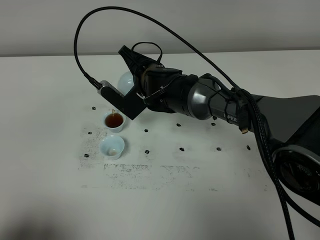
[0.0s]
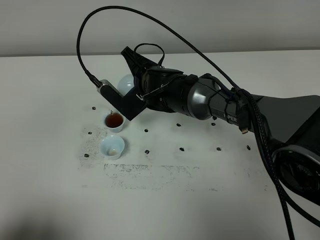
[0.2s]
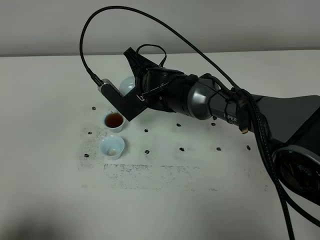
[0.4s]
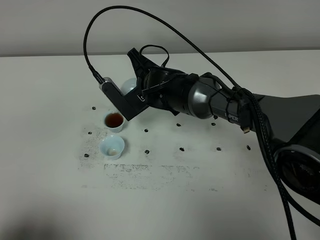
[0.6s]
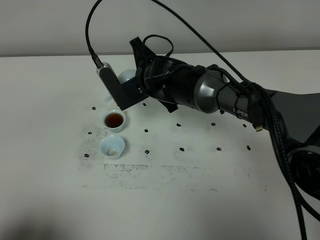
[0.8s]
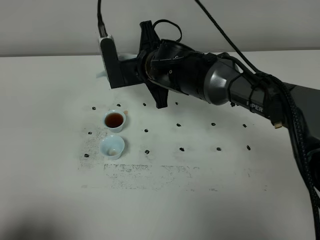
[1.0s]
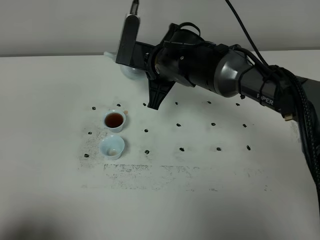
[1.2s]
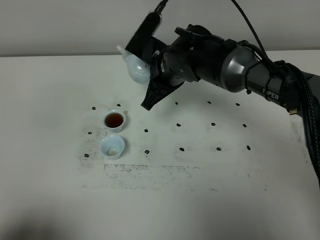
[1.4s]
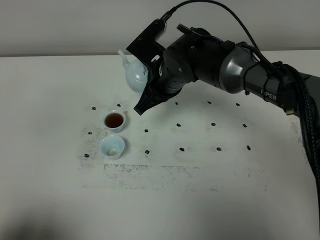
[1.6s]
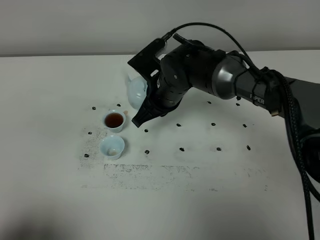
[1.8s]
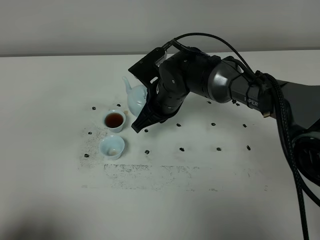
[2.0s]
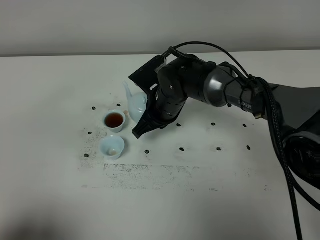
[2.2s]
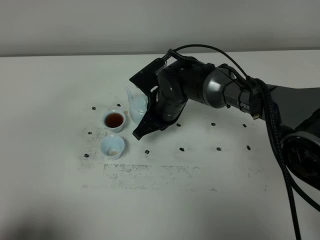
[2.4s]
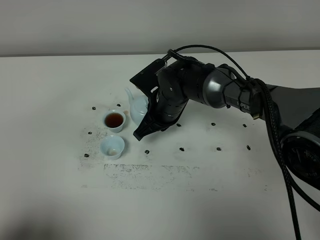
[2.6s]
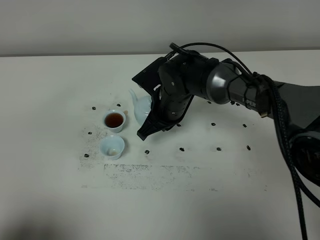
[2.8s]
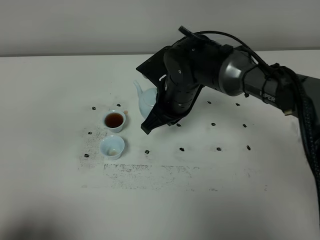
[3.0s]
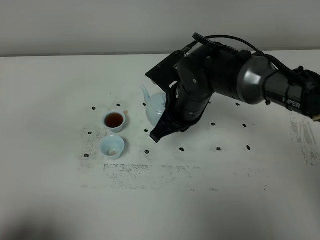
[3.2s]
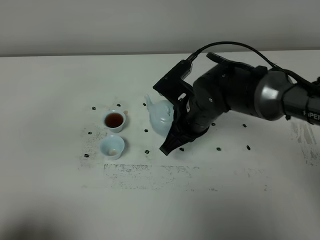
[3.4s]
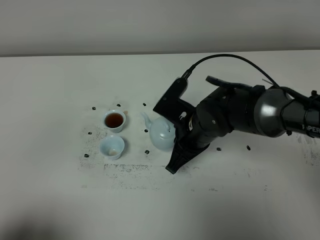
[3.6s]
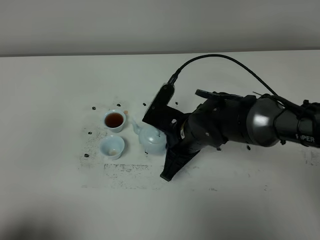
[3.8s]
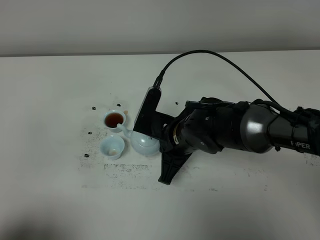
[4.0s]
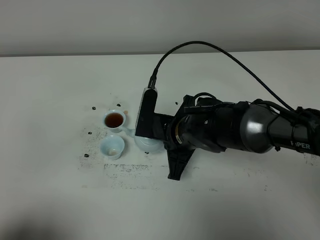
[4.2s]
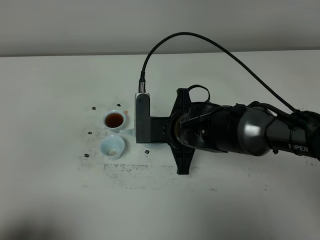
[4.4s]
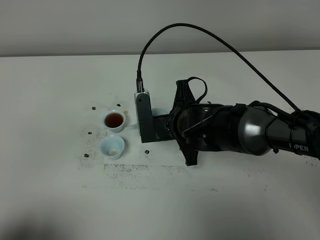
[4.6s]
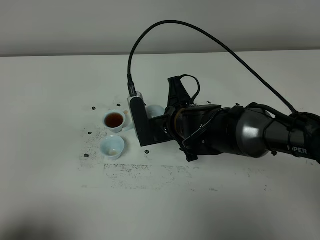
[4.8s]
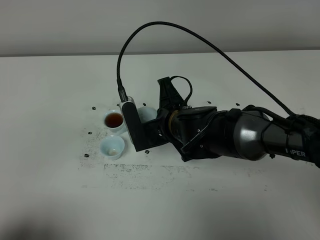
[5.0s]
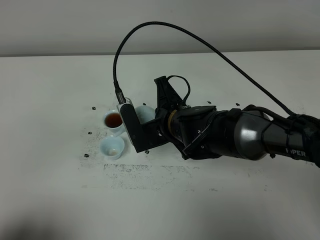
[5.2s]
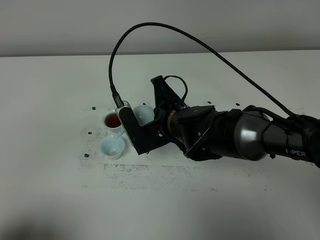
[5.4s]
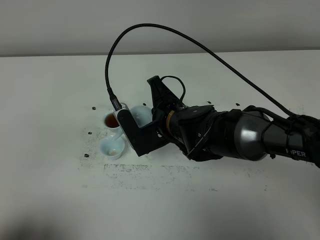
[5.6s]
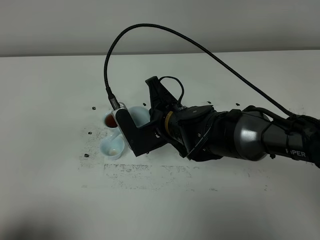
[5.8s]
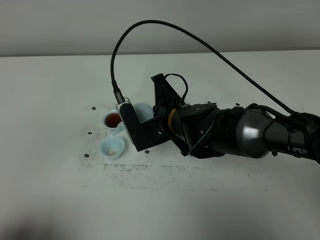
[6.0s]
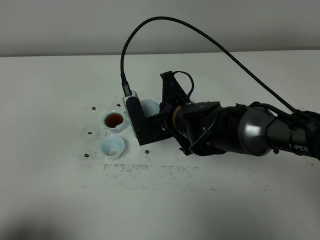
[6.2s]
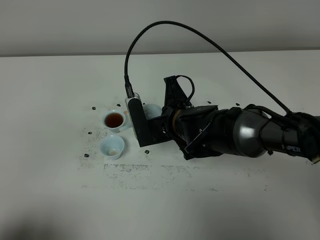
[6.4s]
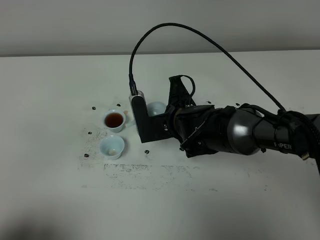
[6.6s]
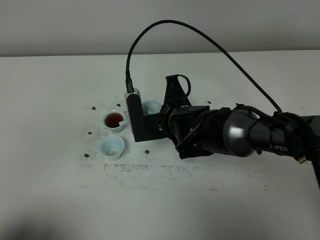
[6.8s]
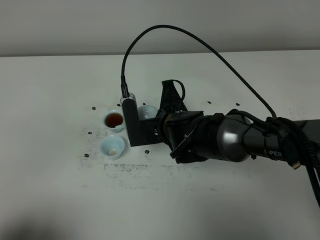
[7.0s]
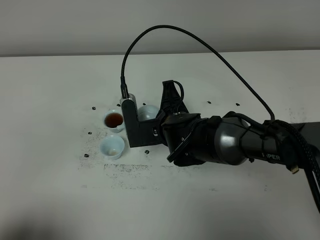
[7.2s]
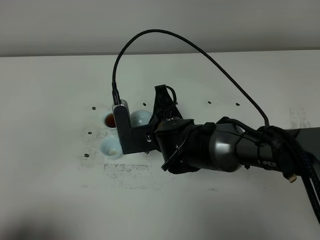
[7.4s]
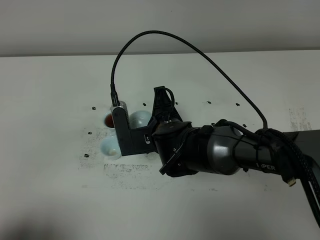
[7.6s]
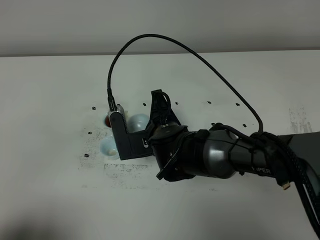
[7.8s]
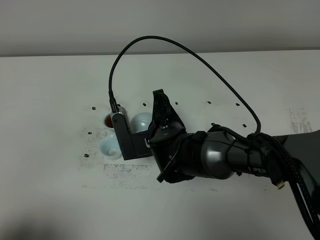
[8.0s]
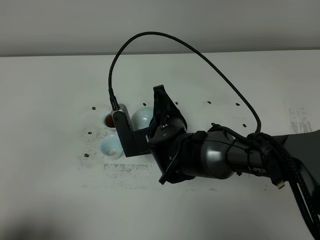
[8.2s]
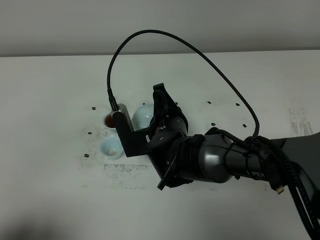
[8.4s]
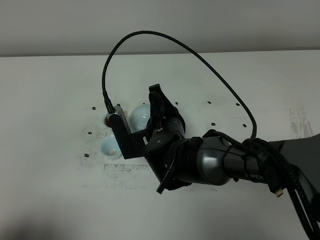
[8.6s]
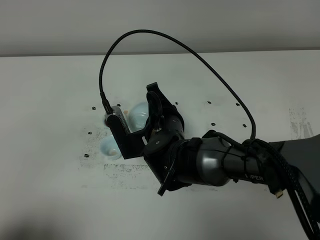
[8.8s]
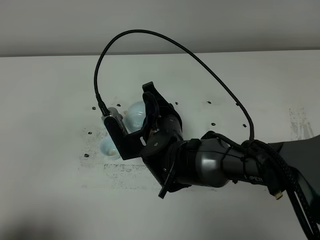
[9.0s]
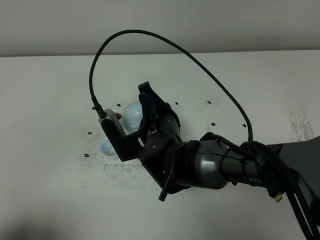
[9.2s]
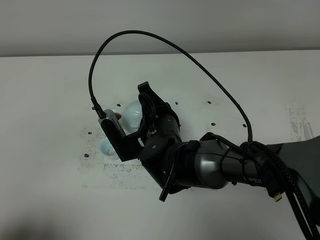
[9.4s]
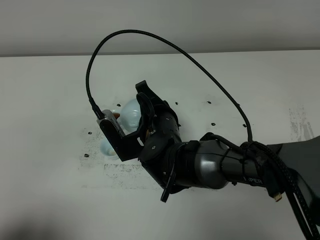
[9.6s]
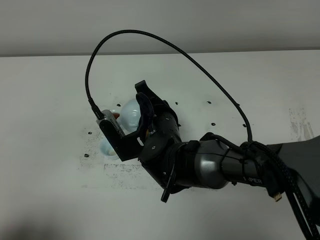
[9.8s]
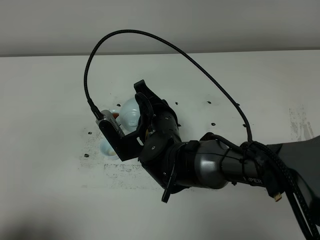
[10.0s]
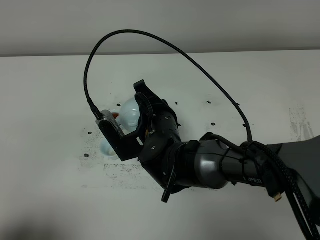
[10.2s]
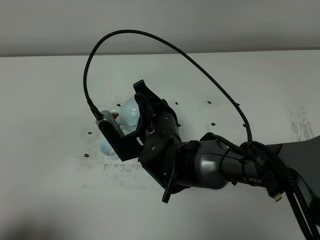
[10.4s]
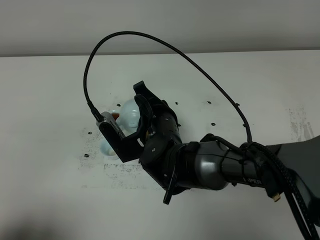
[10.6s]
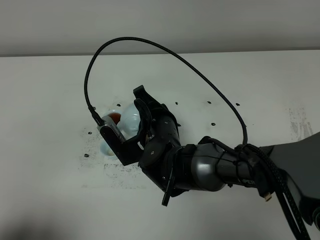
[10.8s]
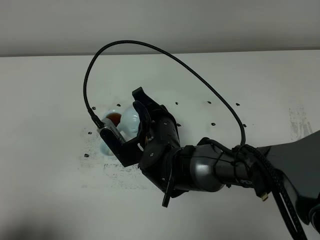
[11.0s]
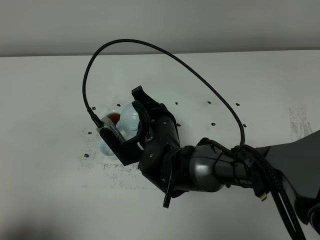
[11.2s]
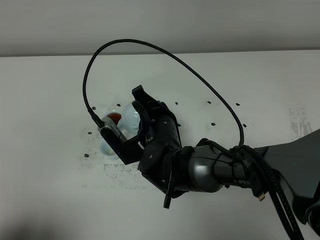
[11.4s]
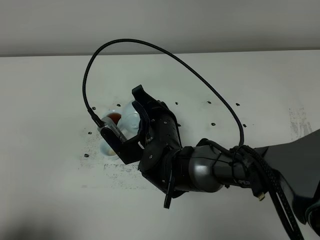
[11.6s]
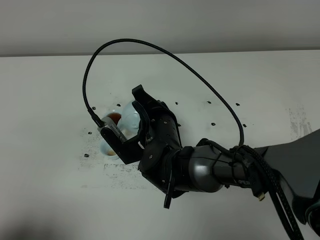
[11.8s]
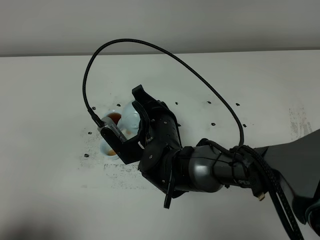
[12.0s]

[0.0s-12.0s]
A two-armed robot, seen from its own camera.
Task of the whole recording: grasp the blue porcelain teapot and pour the tea into the two blue porcelain teacups one by one, put the blue porcelain teapot back in its original place.
3.0s to 4.4s: The right gripper moves backward, roughly 5 cm.
6.0s to 10.4s: The grippers stay close to where they were, moving slightly.
10.4s to 12.0s: The grippers make only small movements.

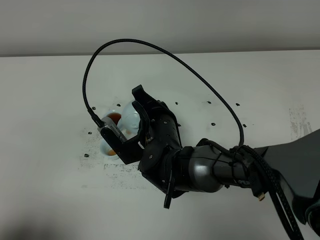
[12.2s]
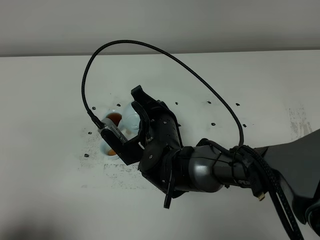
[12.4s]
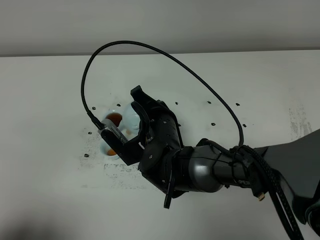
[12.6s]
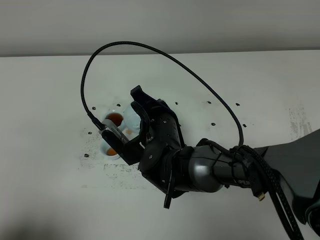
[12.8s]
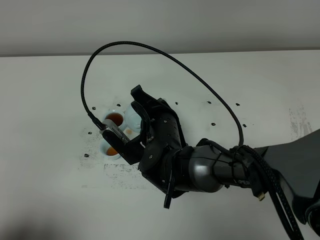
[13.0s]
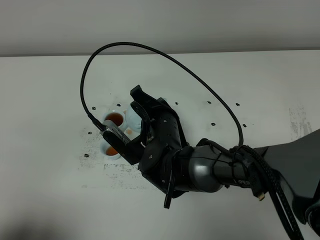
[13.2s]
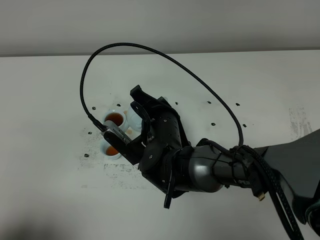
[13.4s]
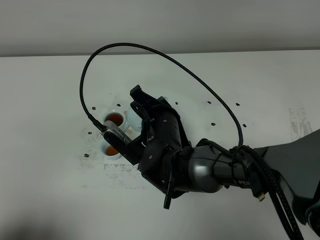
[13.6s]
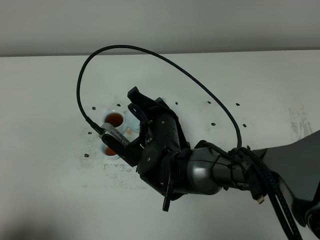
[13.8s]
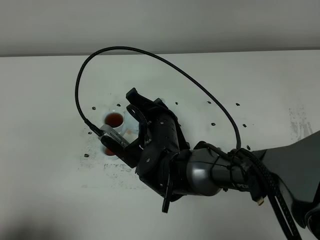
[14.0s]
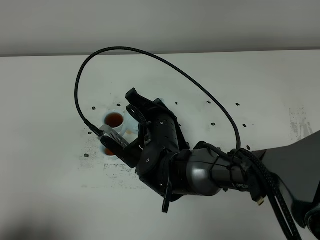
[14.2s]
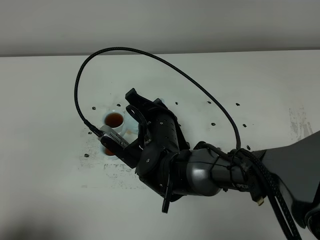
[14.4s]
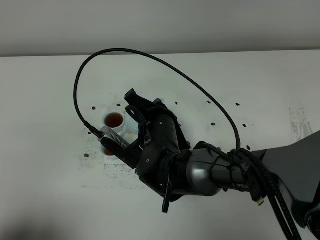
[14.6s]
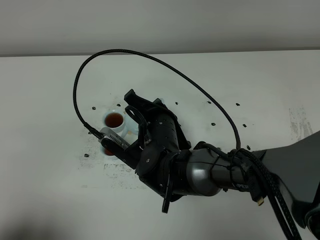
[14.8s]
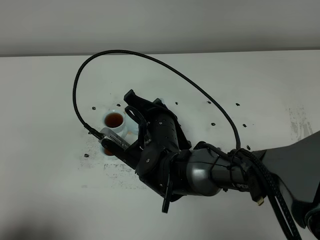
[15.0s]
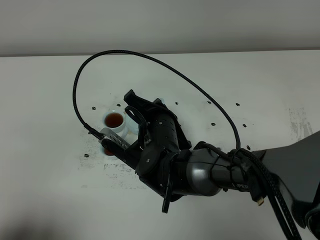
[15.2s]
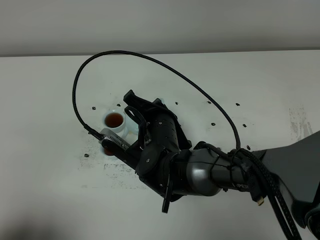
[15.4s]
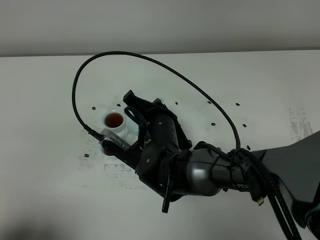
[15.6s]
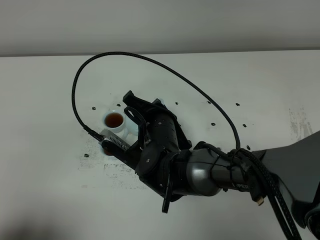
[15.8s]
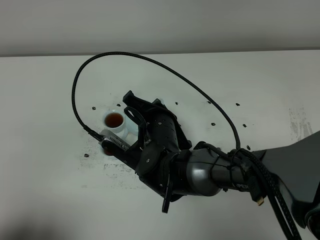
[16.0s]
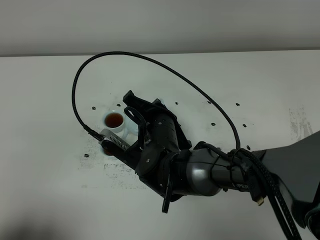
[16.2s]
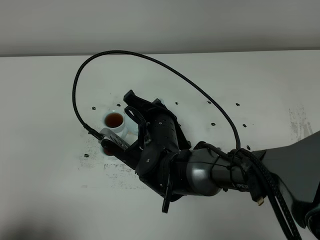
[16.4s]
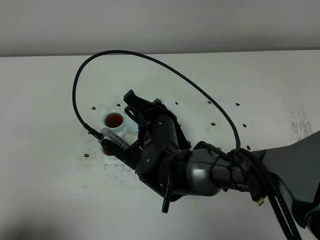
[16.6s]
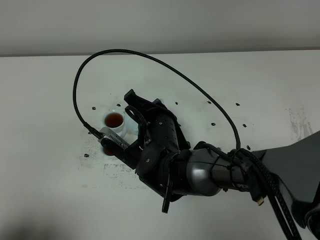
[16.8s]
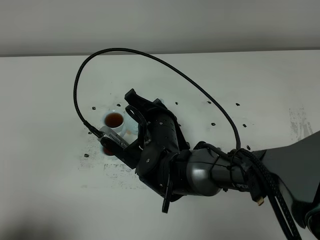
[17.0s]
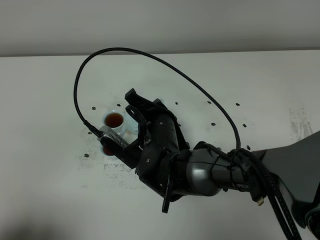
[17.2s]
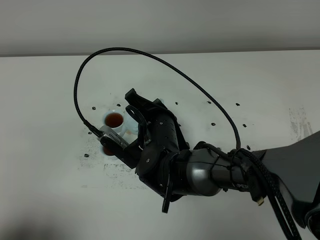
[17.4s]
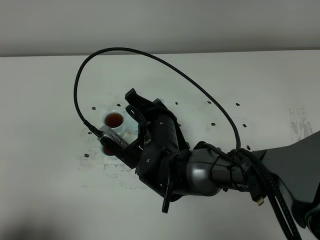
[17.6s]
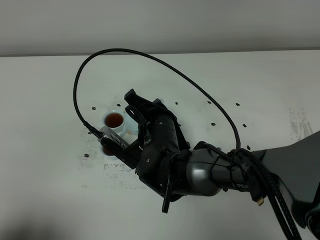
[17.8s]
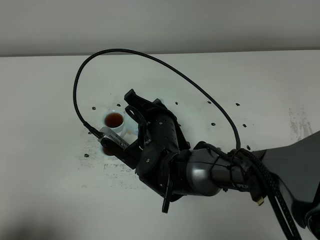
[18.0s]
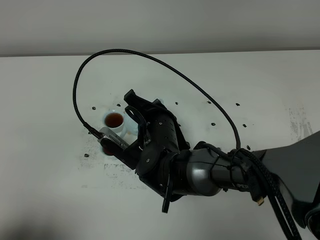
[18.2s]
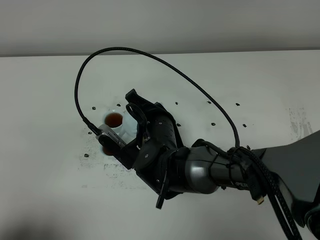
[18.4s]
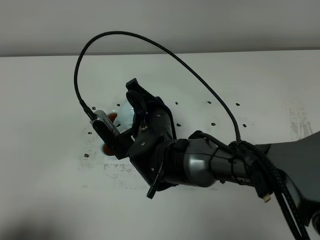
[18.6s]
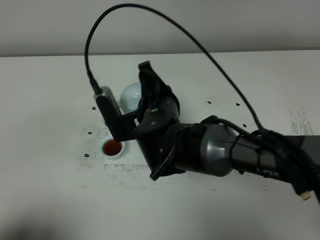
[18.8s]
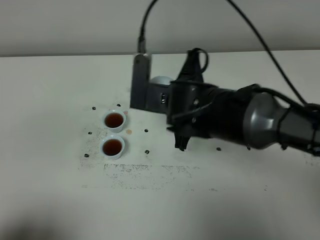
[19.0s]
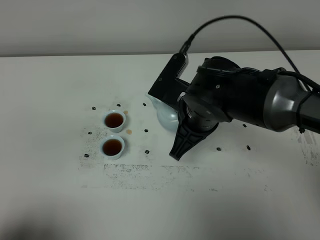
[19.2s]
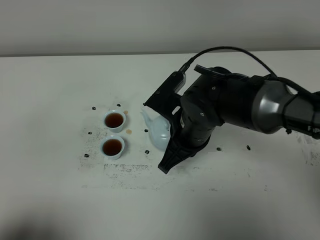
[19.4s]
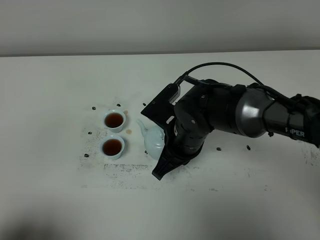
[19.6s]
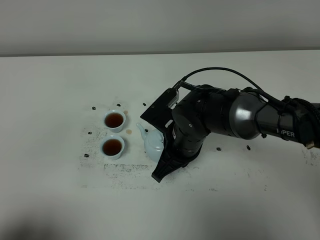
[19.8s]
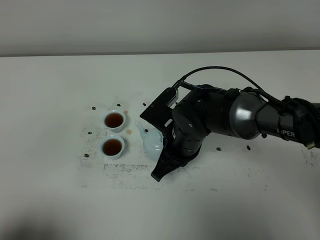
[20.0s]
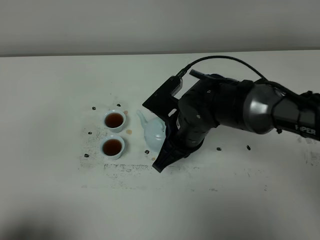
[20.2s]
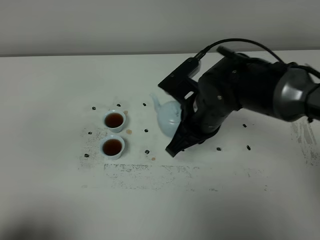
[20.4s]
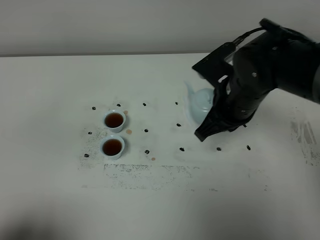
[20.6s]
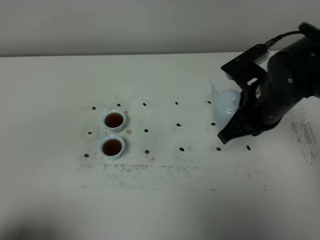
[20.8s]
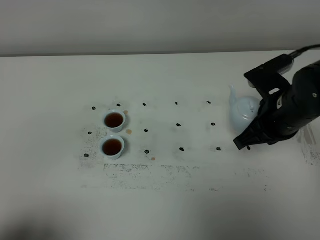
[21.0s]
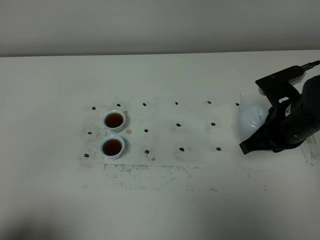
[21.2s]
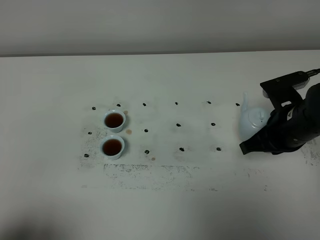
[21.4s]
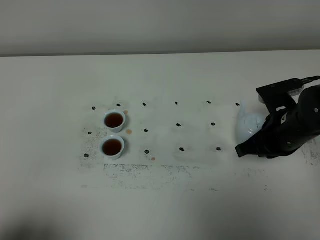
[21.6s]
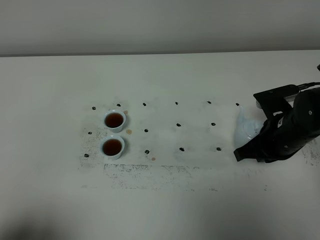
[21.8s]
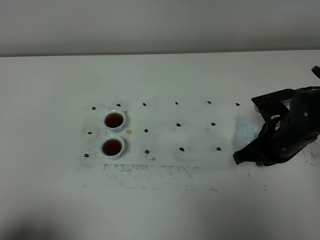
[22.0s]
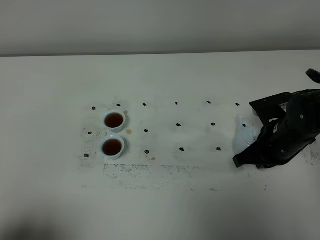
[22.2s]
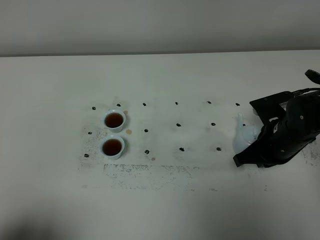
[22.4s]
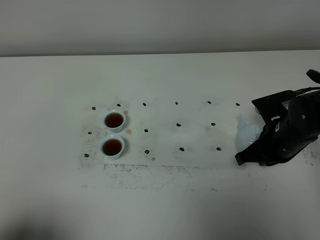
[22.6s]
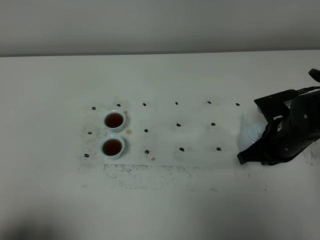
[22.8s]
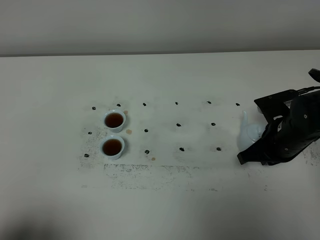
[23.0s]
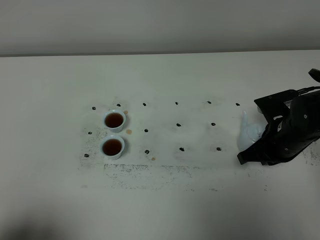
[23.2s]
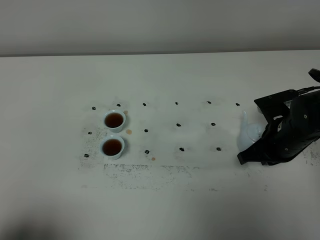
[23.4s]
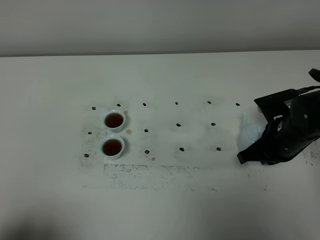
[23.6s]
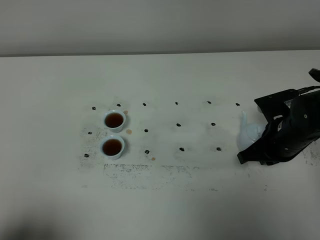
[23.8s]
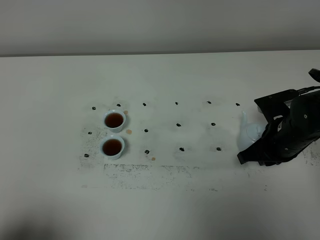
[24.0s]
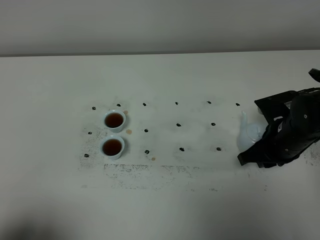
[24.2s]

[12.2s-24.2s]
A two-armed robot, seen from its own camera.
Task of the whole recording: grasp the blue porcelain teapot and pour the tea into the two blue porcelain teacups one by one, put the blue porcelain teapot back in its original place.
Step, 12.2s to 18.6s: Pour tea into the teacup with the right gripper.
12.2s to 13.8s: The grippers make only small movements.
13.8s to 15.2s: Both grippers stay put.
15.2s to 18.2s: Neither gripper changes place.
18.2s to 19.8s: The right gripper goes upward and returns, roughly 10 cm each way.
19.8s to 21.2s: The right gripper moves to the right, some 15 cm.
21.2s to 22.6s: The right gripper is displaced downward by roughly 5 cm.
22.6s to 24.2s: The right gripper opens up.
